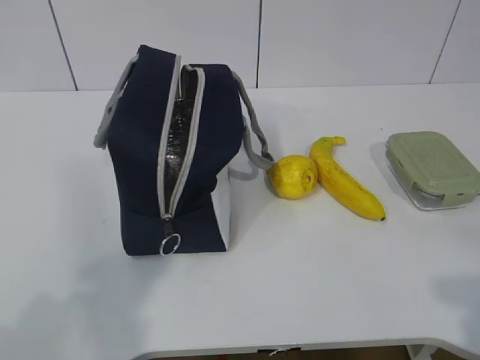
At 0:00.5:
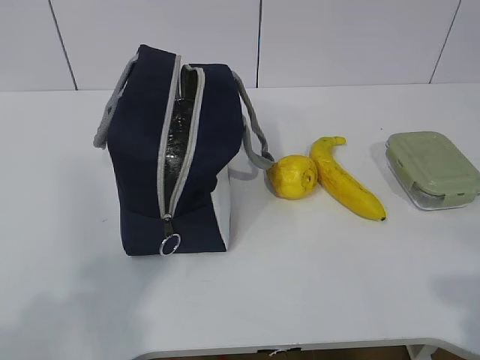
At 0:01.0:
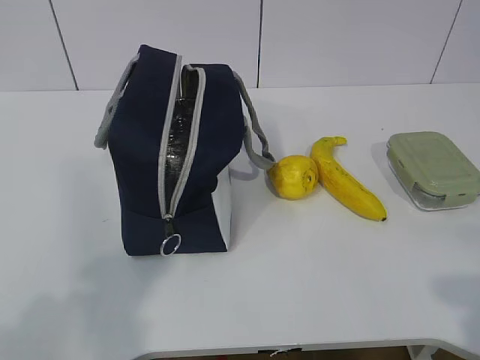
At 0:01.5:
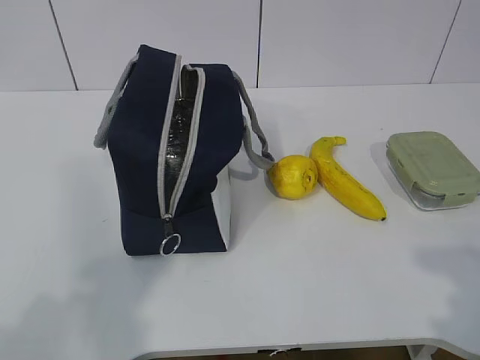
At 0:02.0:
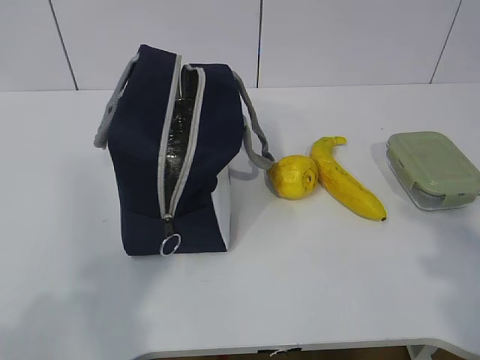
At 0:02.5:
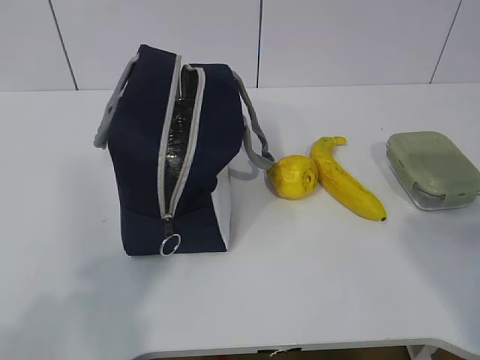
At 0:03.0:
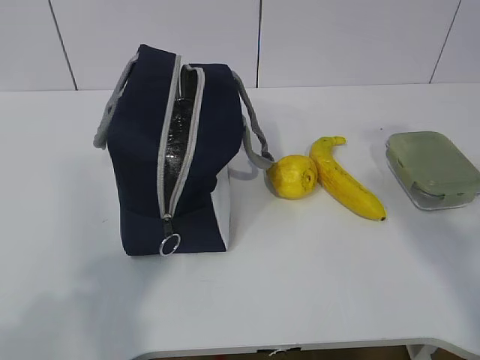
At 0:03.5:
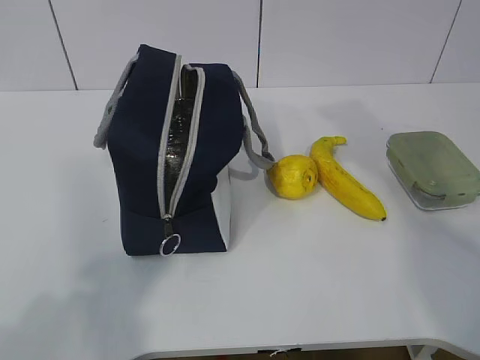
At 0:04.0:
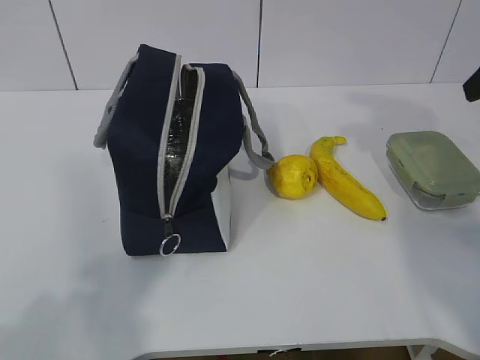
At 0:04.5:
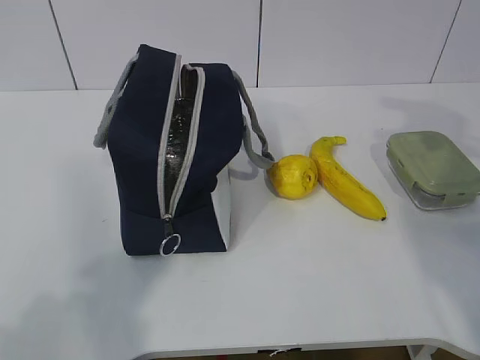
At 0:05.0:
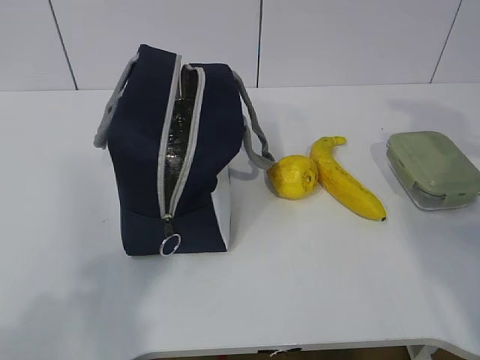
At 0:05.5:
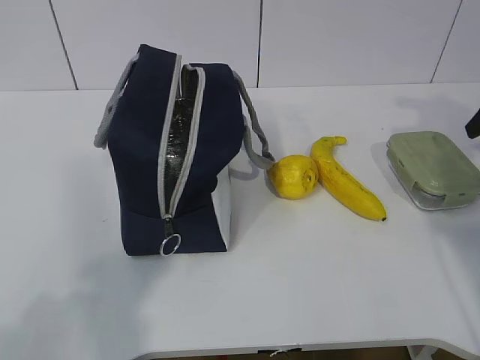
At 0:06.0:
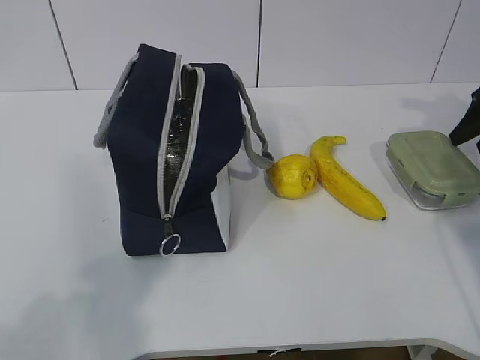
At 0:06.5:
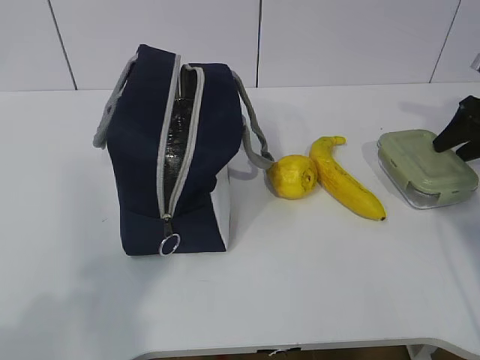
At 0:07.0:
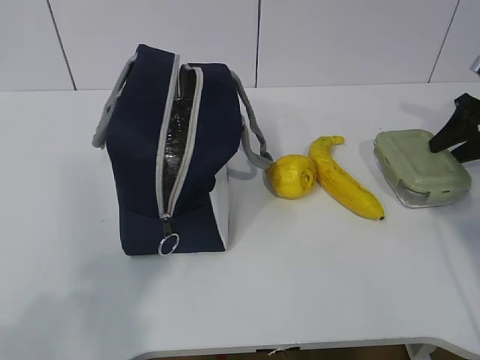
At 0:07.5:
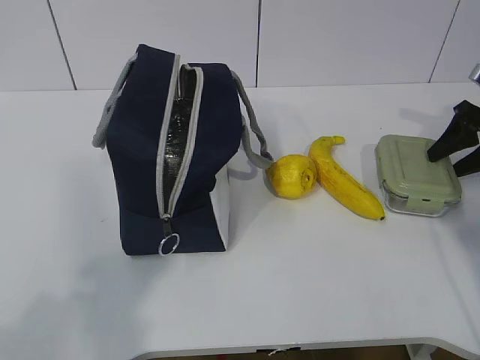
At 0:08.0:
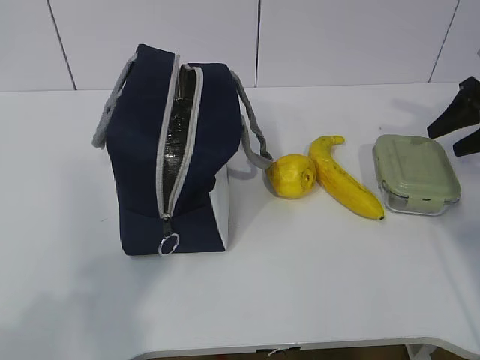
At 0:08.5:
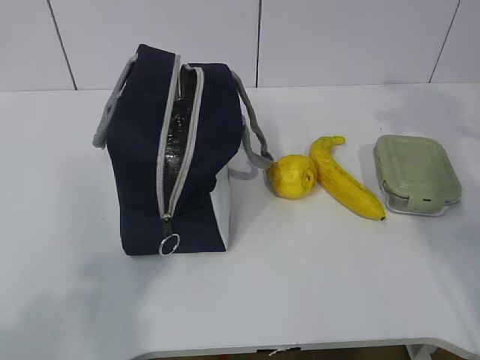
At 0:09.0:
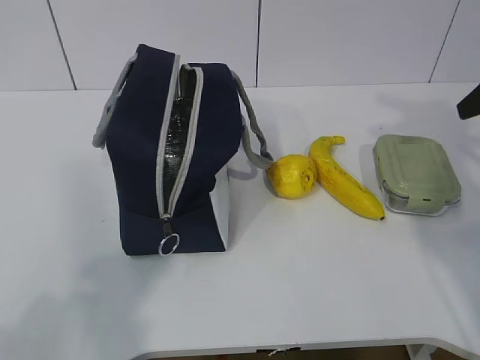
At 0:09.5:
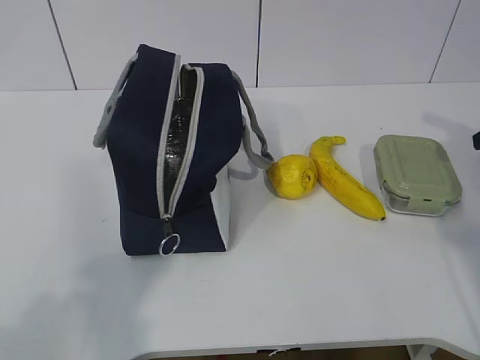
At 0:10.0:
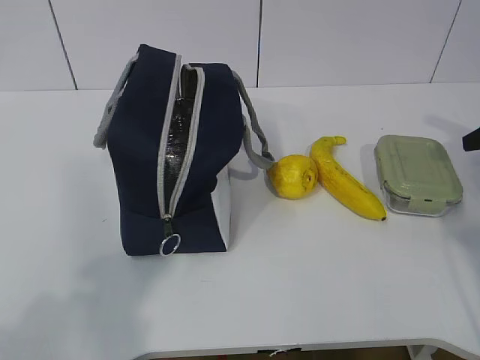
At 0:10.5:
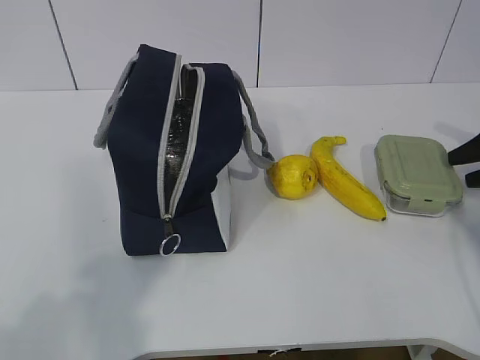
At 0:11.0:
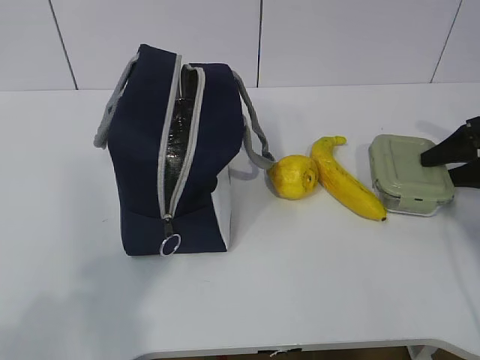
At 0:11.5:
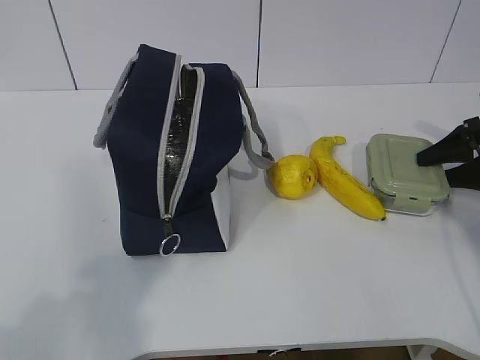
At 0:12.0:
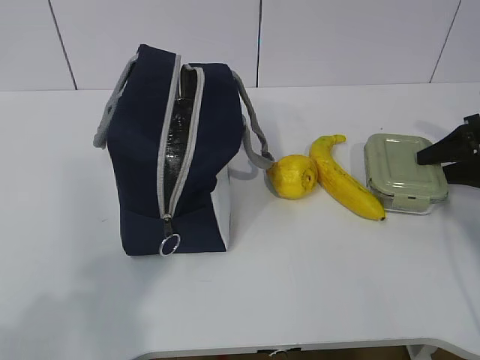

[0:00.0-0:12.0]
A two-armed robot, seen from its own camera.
0:02.0 to 0:04.0: The right gripper heads forward, covering roughly 25 cm.
0:04.0 to 0:06.0: The right gripper is displaced downward, forward and to the right by roughly 20 cm.
0:06.0 to 0:08.0: There are only small adjustments of the grippers.
0:08.0 to 0:10.0: The right gripper goes about 5 cm backward, and travels upward and back again, roughly 10 cm each way.
0:10.0 to 0:12.0: The right gripper shifts approximately 5 cm downward.

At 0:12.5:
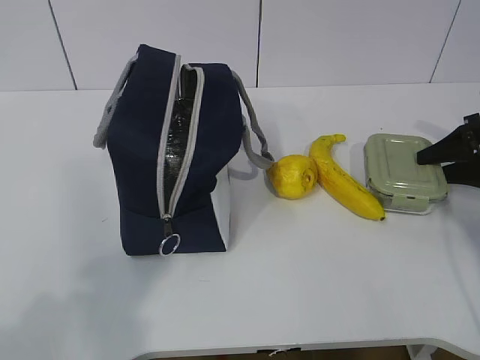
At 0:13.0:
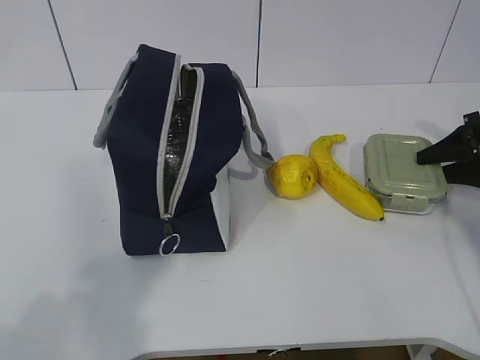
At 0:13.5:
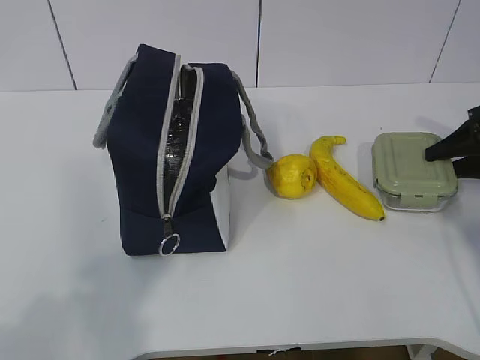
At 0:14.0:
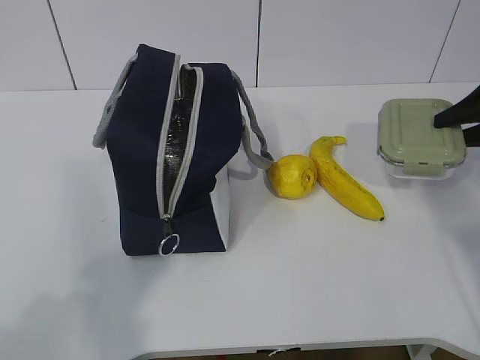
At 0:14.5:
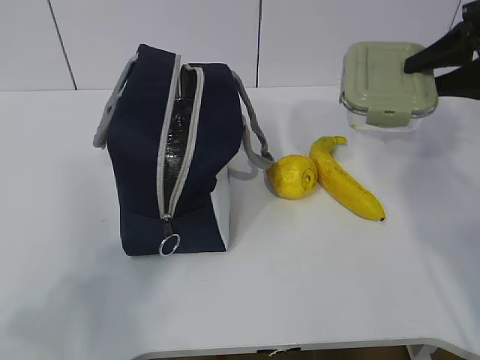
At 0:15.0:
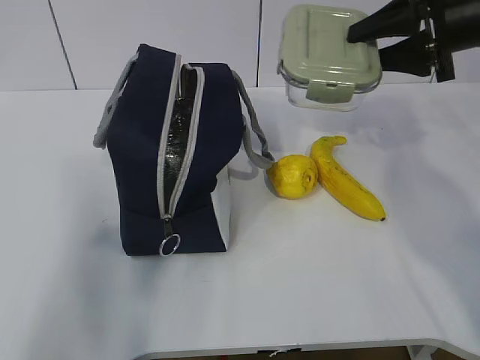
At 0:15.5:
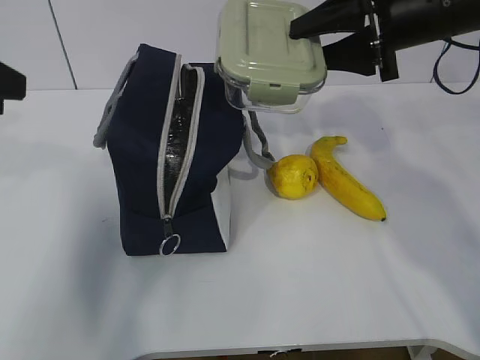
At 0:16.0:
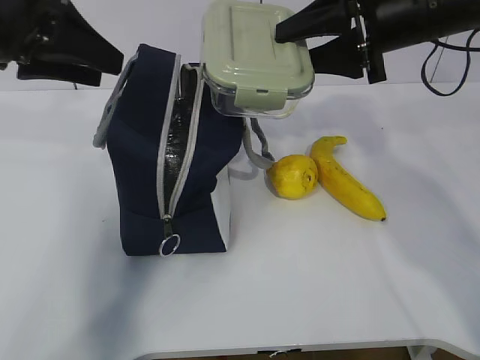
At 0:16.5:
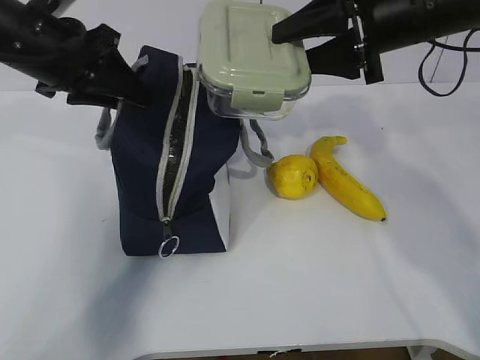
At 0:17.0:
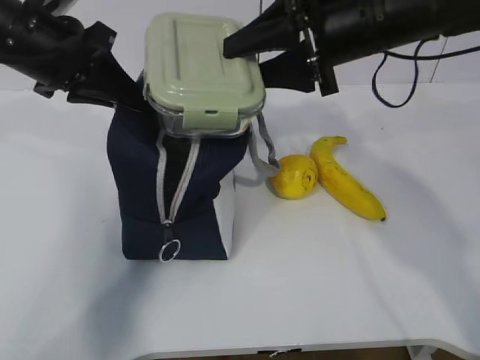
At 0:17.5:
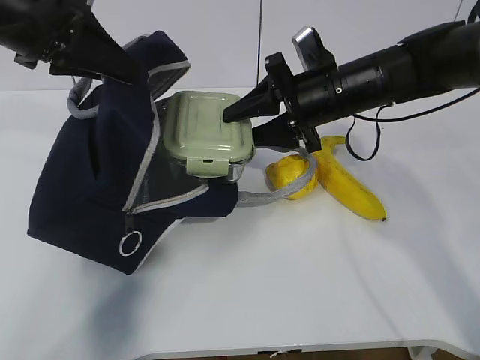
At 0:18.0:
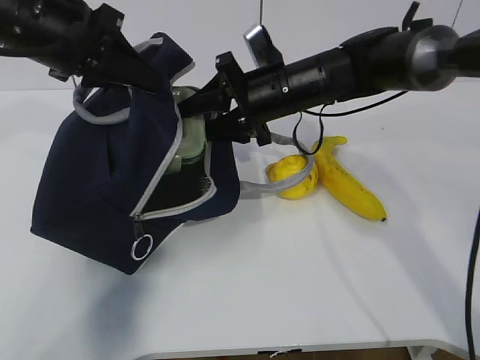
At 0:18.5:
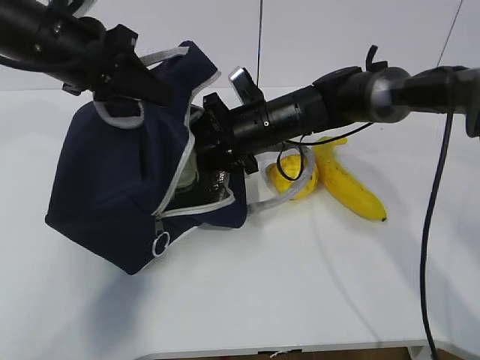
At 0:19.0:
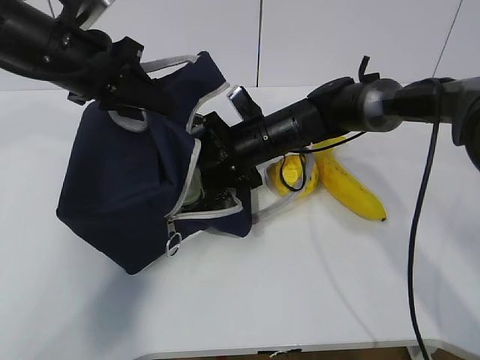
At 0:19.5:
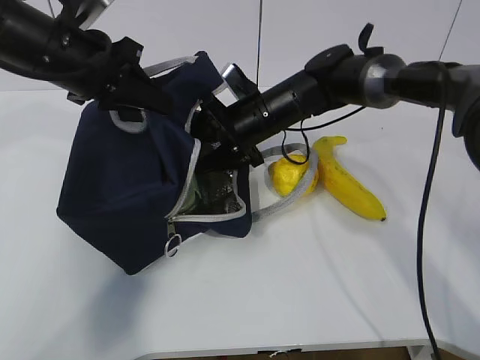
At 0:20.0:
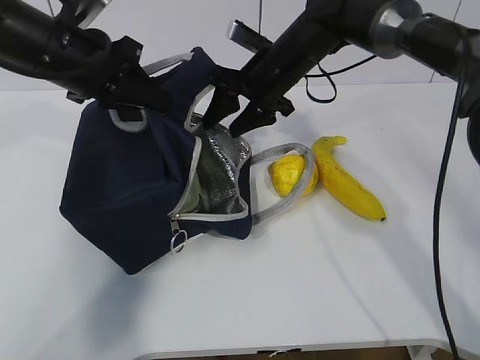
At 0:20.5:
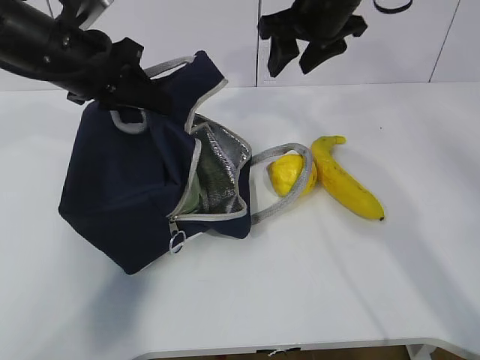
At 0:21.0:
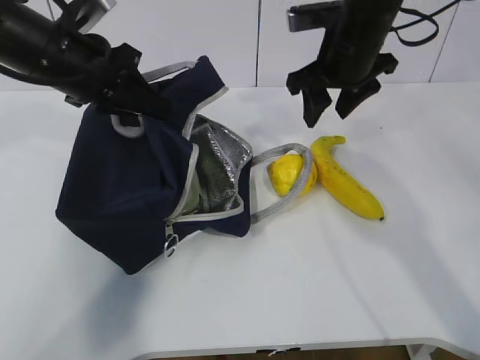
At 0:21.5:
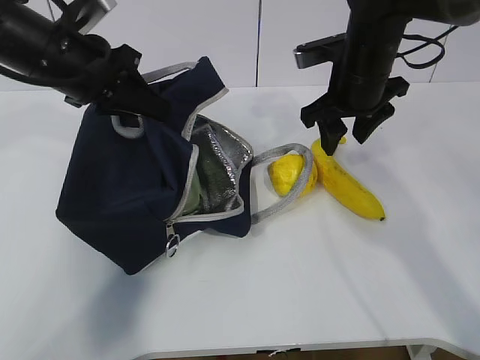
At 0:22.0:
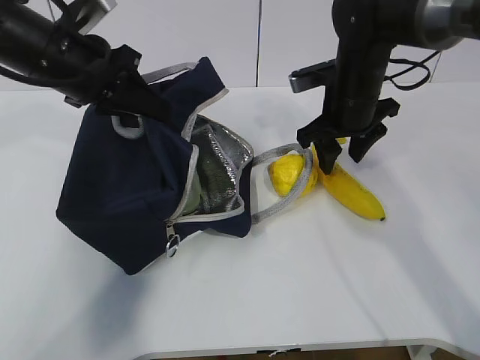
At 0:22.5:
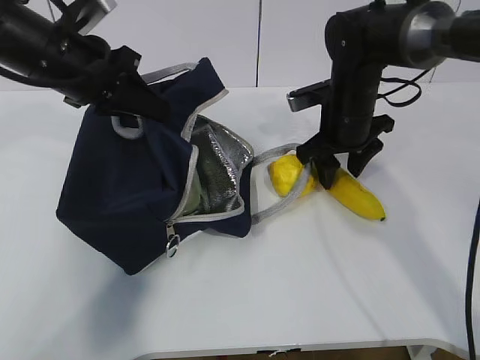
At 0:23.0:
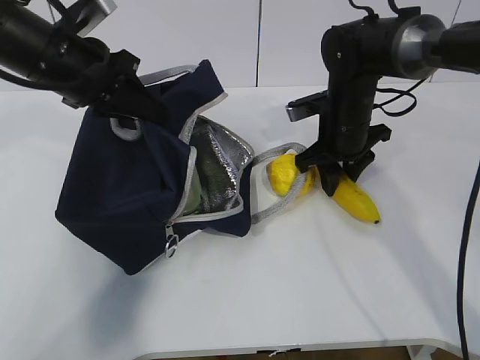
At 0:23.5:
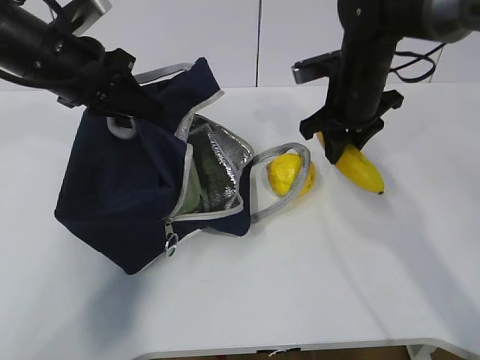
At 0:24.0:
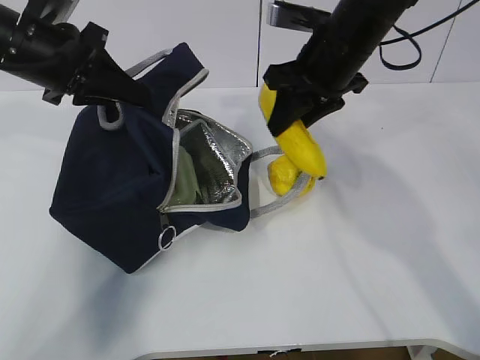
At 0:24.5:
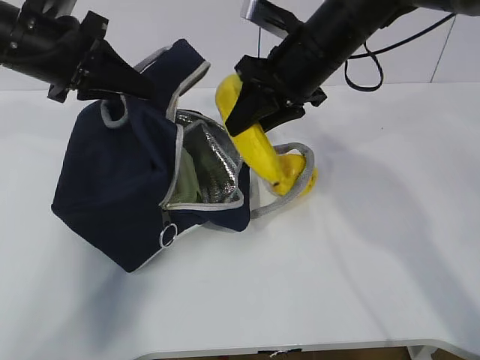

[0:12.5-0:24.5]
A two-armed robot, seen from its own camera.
Step, 0:12.5 to 0:19.5: Place the box into the package with the right gripper.
Step, 0:20.0 to 0:23.0: Grasp the banana with the right gripper.
0:12.5 to 0:14.5: The right gripper heads upward and to the left, covering approximately 15 cm.
0:14.5 to 0:16.5: The right gripper travels to the left by roughly 15 cm. Meanwhile the left gripper shifts approximately 35 cm forward.
0:16.5 to 0:18.5: The right gripper heads downward, to the left and forward, covering roughly 20 cm. Meanwhile the left gripper closes.
0:18.5 to 0:20.5: The right gripper goes some 15 cm upward and to the right.
0:20.5 to 0:22.5: The right gripper is displaced downward by approximately 15 cm.
0:22.5 to 0:24.5: The right gripper heads upward and to the left, covering about 10 cm.

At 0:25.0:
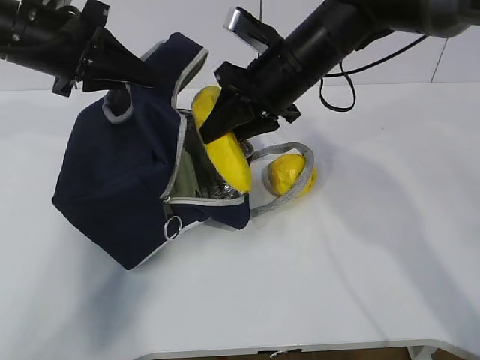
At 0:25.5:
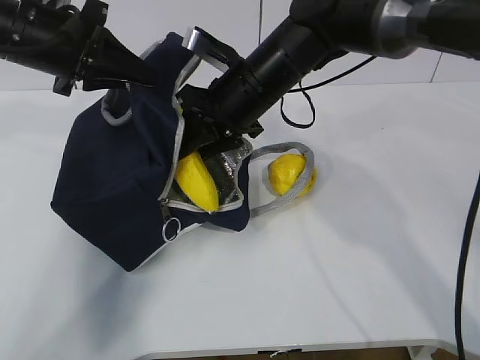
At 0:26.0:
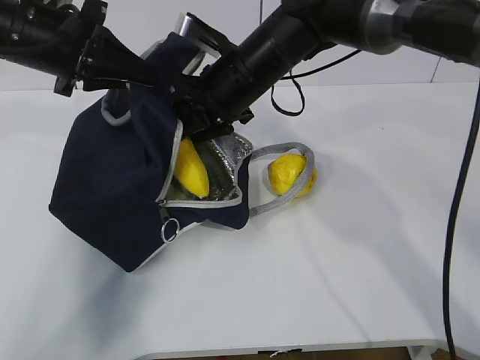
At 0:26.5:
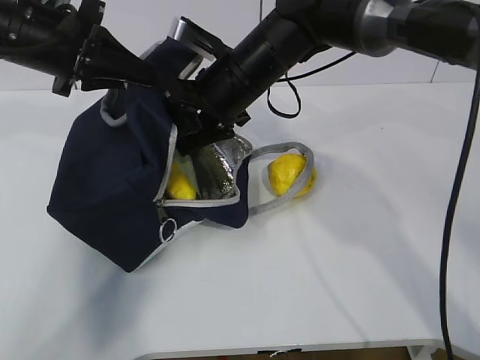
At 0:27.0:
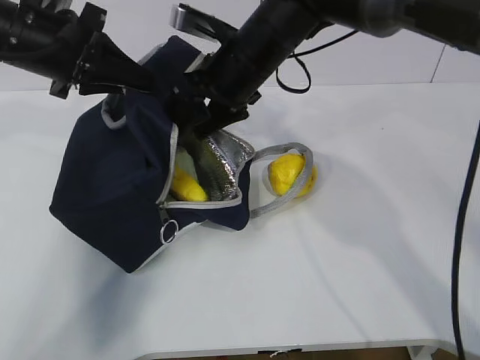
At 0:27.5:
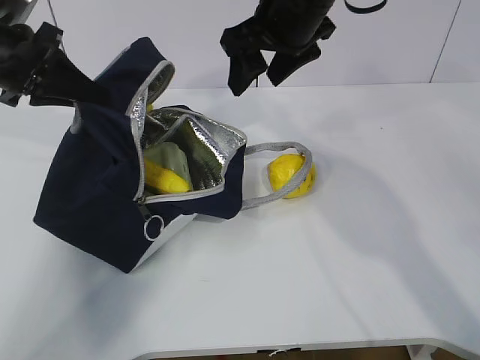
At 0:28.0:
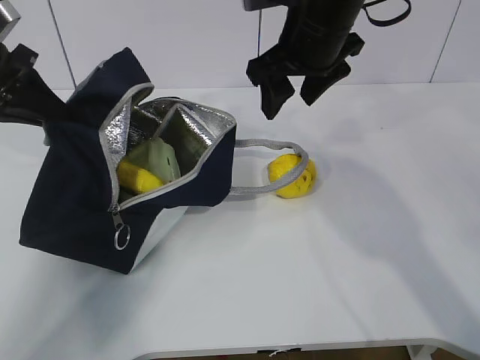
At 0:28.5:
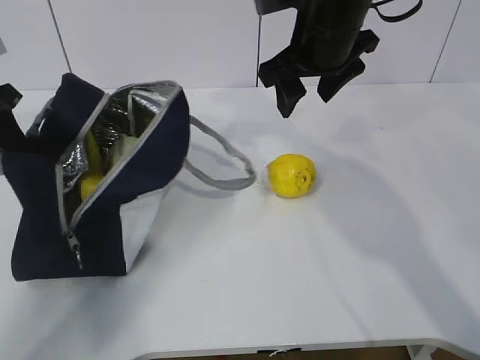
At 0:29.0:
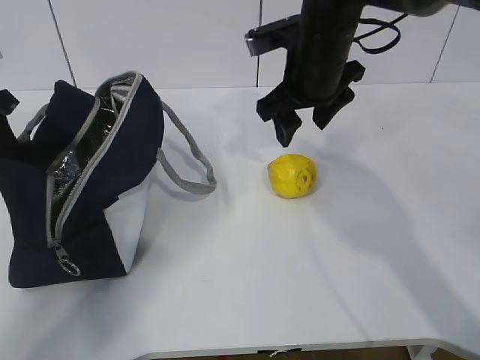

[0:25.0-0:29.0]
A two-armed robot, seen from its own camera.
0:25.0 to 0:27.0: The right gripper shifts by roughly 5 cm, and opens up.
0:27.0 to 0:29.0: The right gripper heads to the right, covering some 5 cm, while the left gripper is displaced to the left by about 10 cm.
